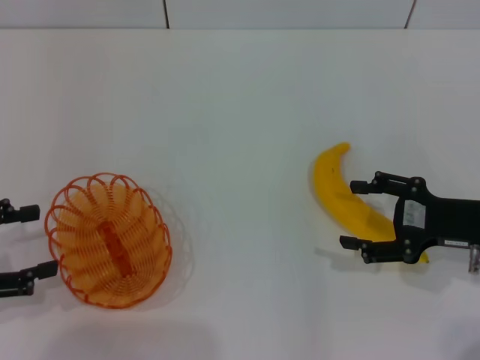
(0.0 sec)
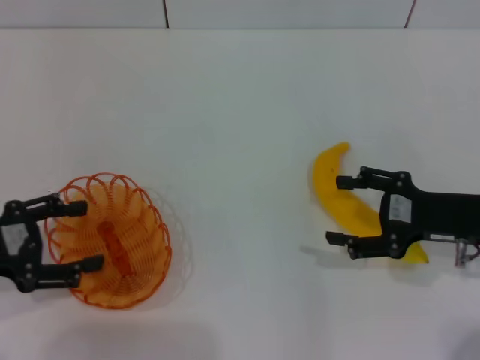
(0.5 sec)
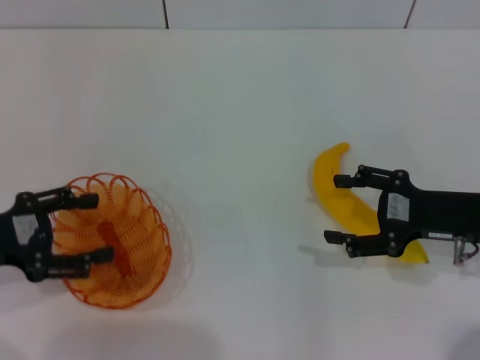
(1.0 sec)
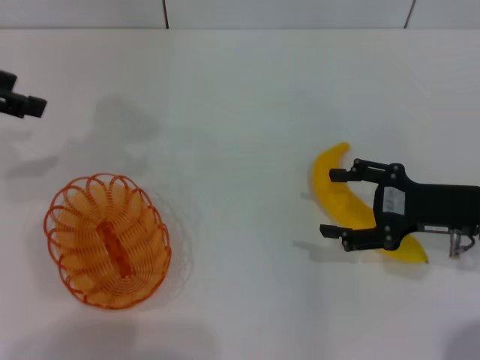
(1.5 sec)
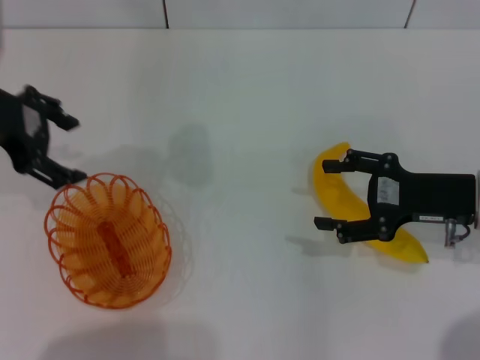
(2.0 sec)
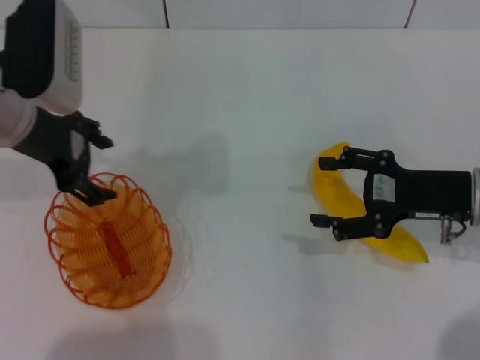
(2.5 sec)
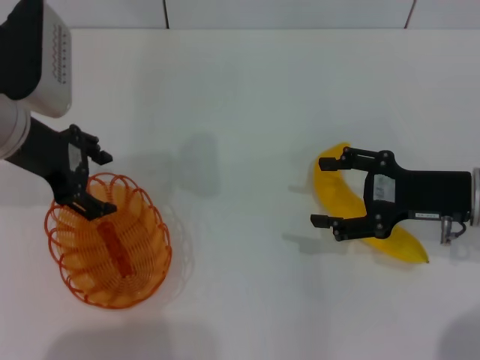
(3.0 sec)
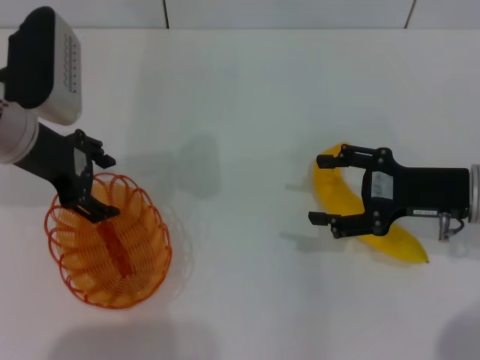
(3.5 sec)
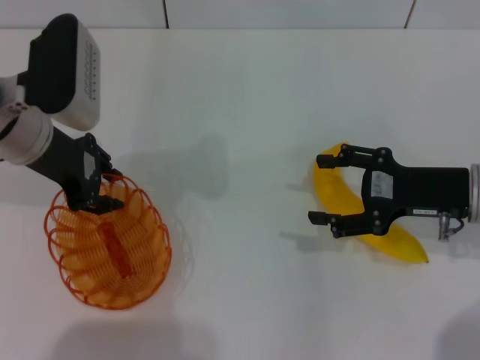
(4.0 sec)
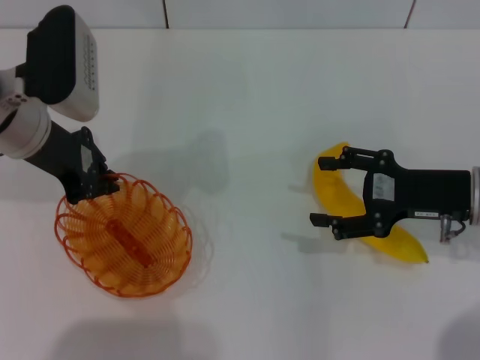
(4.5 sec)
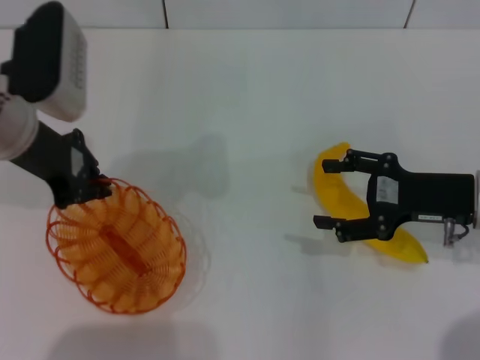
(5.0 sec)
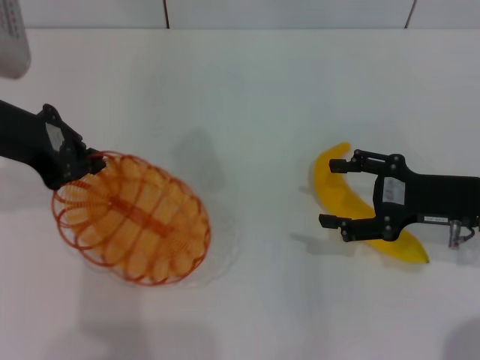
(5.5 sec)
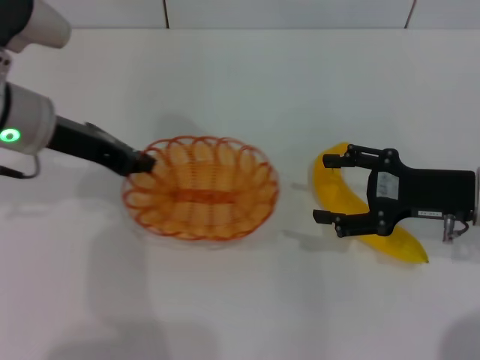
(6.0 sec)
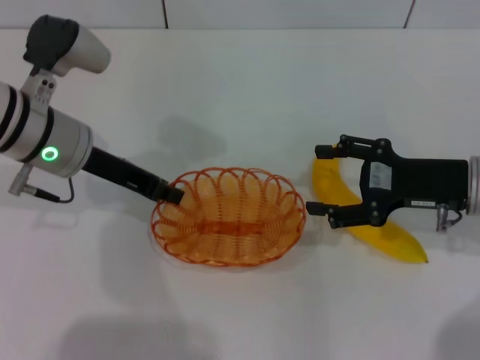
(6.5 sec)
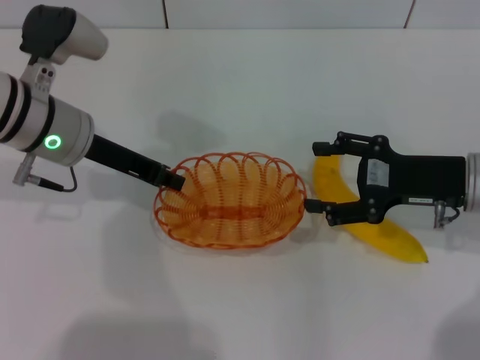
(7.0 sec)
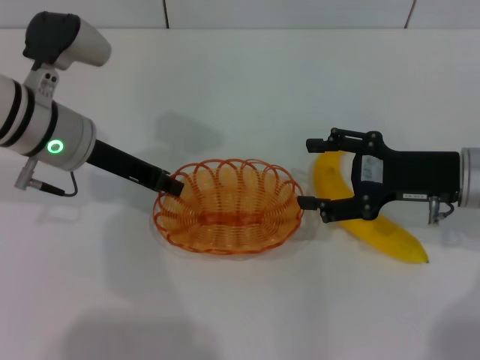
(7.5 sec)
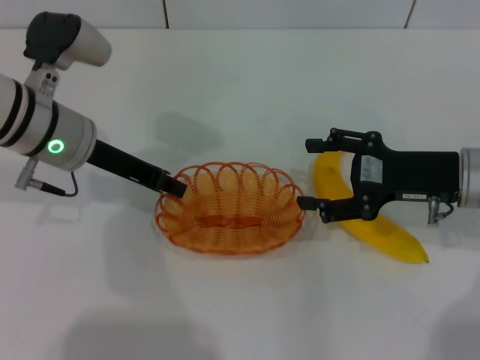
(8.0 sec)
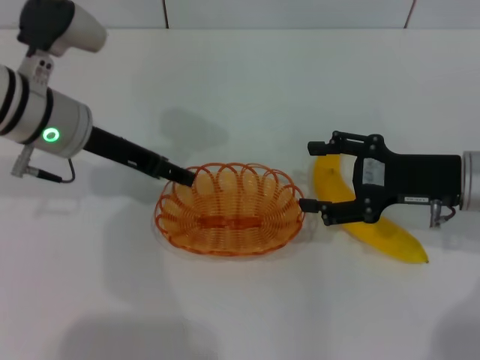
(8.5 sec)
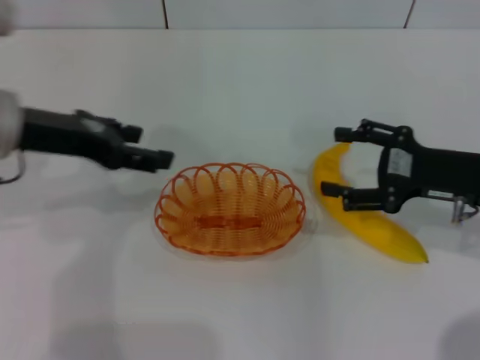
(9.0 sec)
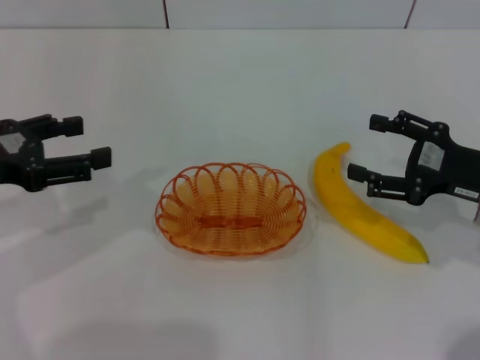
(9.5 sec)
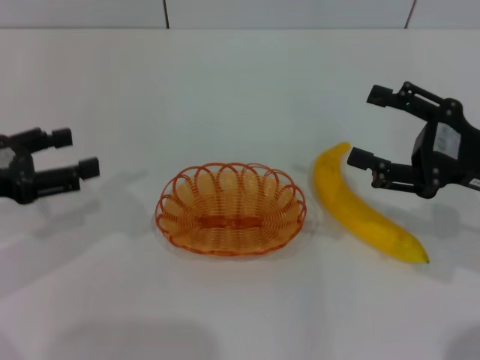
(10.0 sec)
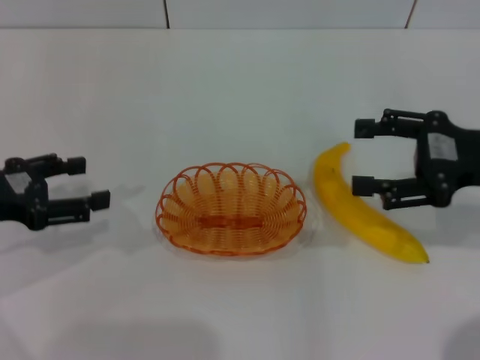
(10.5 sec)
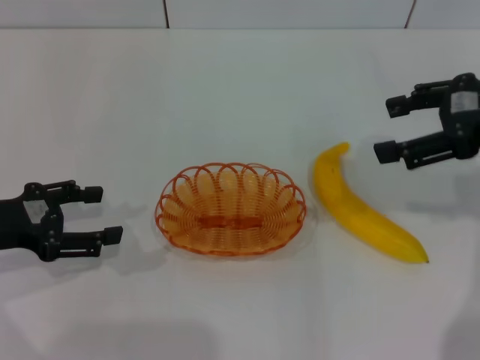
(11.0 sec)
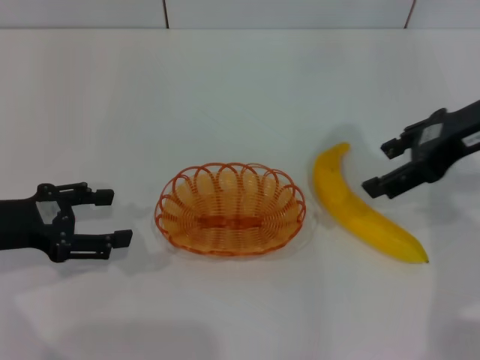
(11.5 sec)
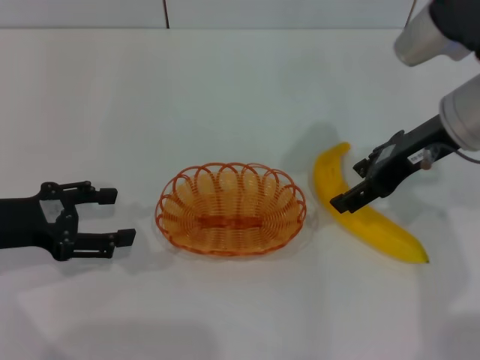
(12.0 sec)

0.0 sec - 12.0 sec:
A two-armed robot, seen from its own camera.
Step, 0.0 sec - 5.5 sec: Pick up the basket with the left gripper.
Step, 6.0 sec - 8.0 sec: Place the basket in the center of view with the left gripper.
0.0 sec - 2.0 sec: The left gripper travels forward, upward and to the right by about 20 cm.
2.0 sec - 4.0 sec: The left gripper heads downward, covering about 5 cm.
4.0 sec - 6.0 sec: The left gripper closes up.
6.0 sec - 8.0 sec: The grippers move only a little.
8.0 sec - 10.0 sec: The left gripper travels to the left and backward by some 15 cm, and opens up. Meanwhile the right gripper moves approximately 5 cm.
10.0 sec - 12.0 sec: The right gripper travels to the left, forward and upward by approximately 15 cm.

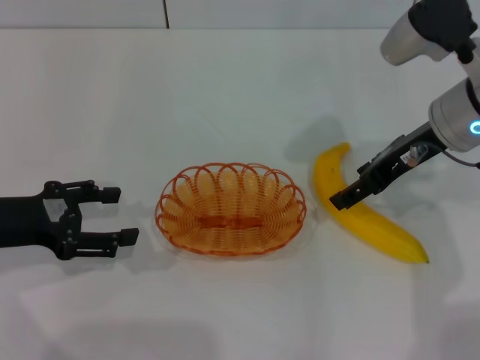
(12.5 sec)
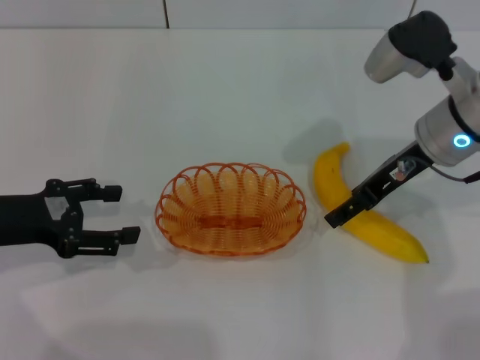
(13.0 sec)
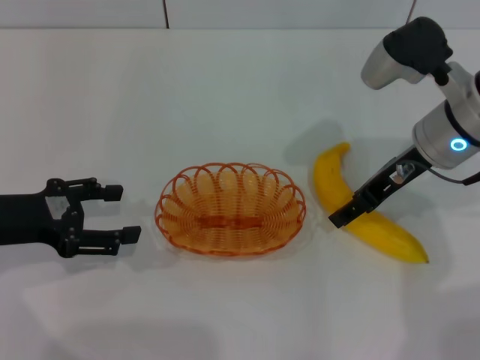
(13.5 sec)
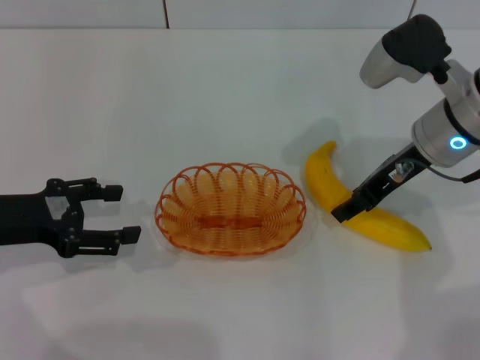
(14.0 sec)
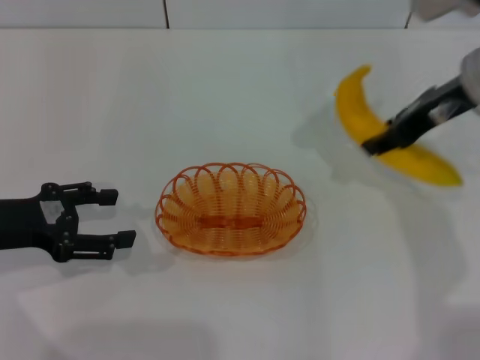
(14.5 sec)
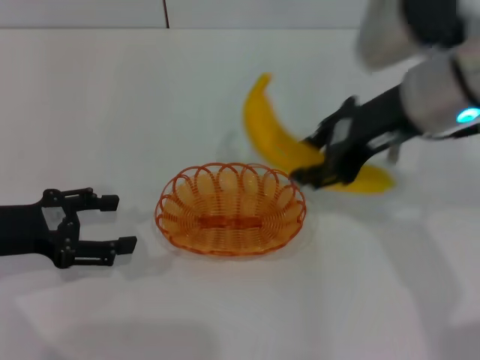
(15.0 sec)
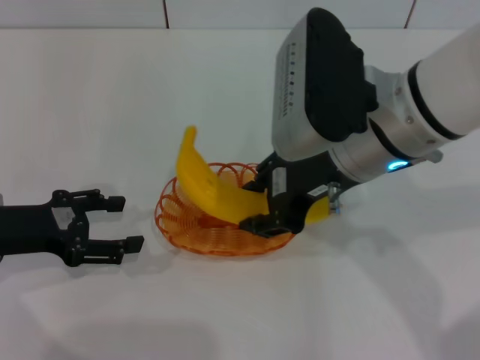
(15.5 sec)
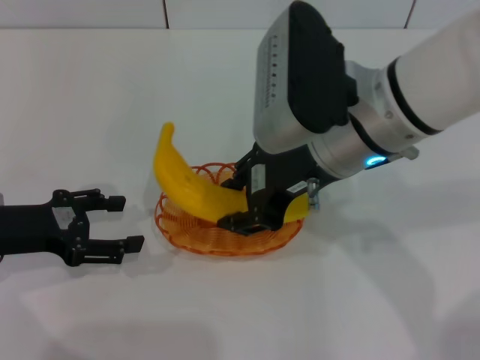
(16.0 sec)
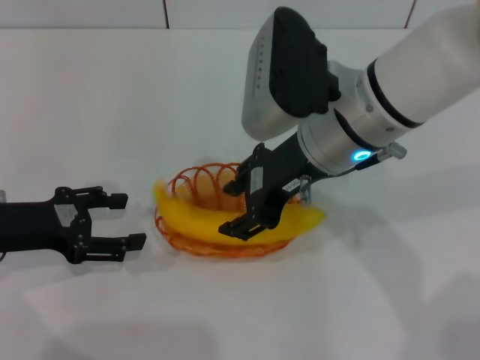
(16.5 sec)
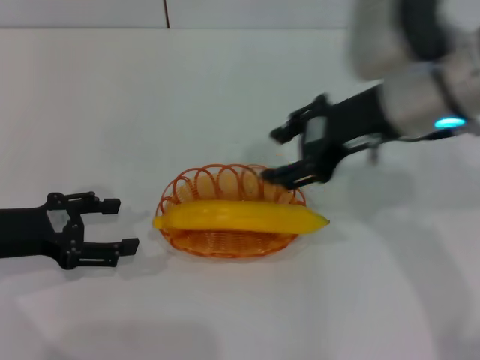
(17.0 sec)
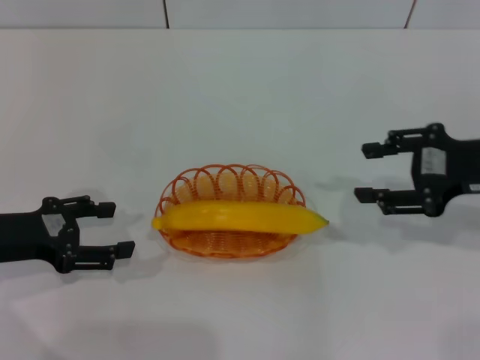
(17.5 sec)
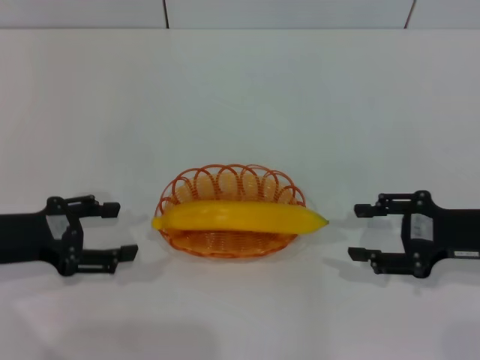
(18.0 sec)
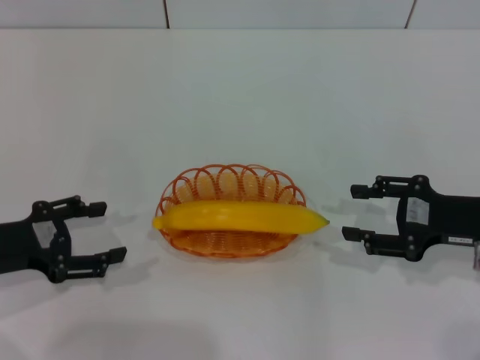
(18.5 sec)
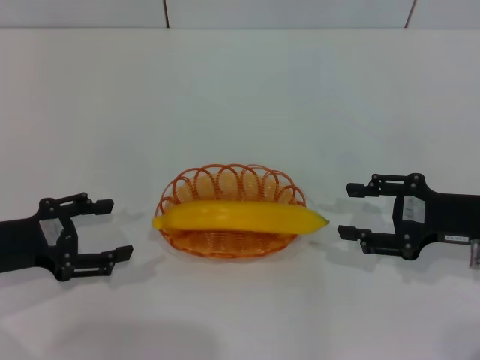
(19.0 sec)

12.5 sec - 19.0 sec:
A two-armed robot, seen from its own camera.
Step, 12.5 sec - 14.5 sec: Pick up the banana with the right gripper.
Step, 15.0 sec - 17.0 sec: Place the banana into the basket with the right gripper.
12.5 sec - 14.5 sec: The right gripper closes its fingers.
14.5 sec - 17.0 sec: The right gripper shifts some 5 cm to the left, and opens up.
17.0 sec - 19.0 sec: The right gripper travels to the right, downward and backward by some 20 cm.
